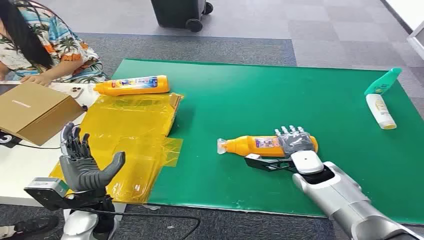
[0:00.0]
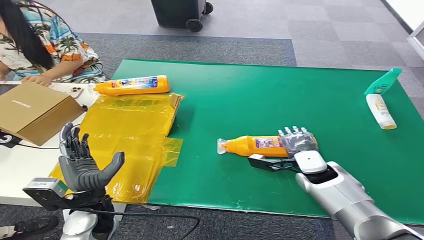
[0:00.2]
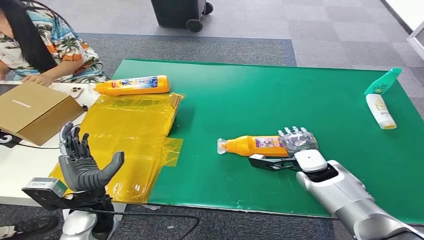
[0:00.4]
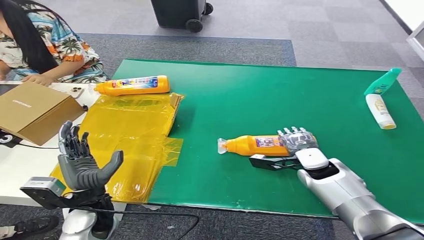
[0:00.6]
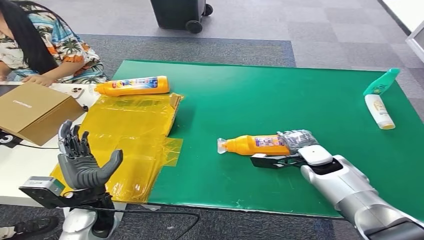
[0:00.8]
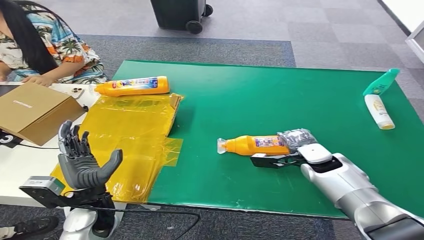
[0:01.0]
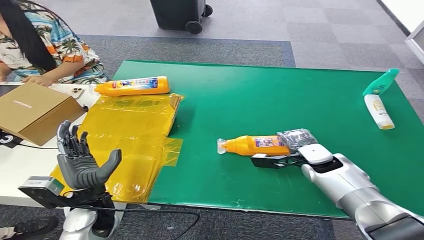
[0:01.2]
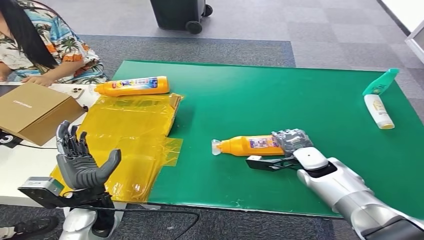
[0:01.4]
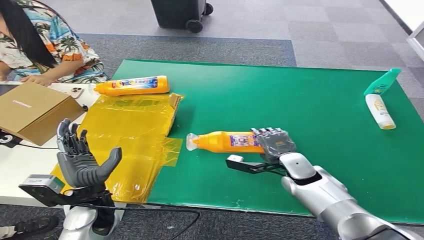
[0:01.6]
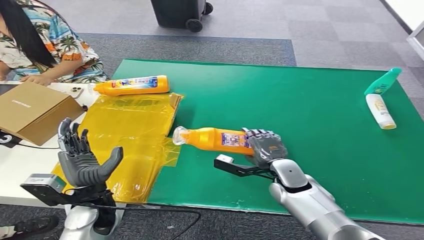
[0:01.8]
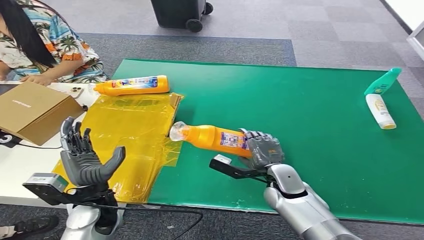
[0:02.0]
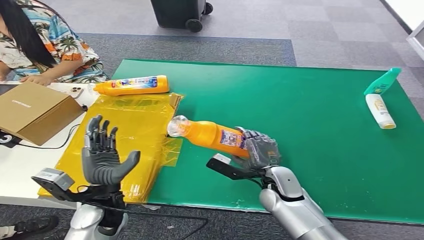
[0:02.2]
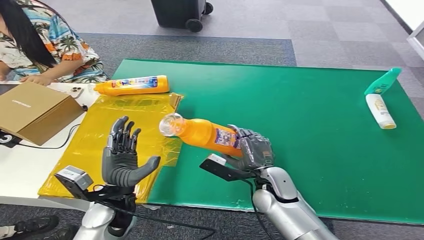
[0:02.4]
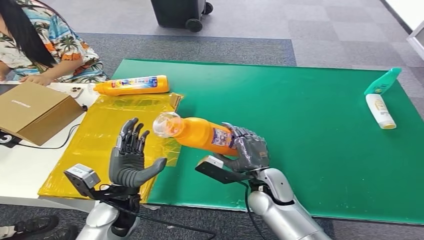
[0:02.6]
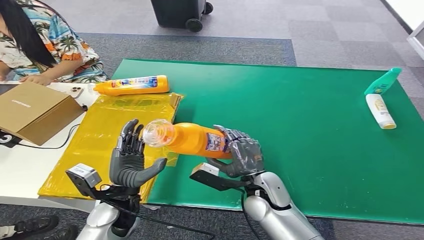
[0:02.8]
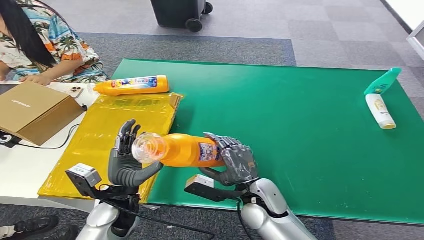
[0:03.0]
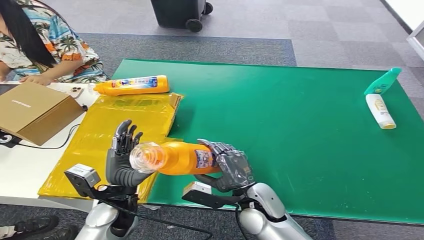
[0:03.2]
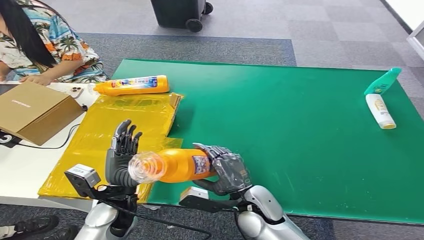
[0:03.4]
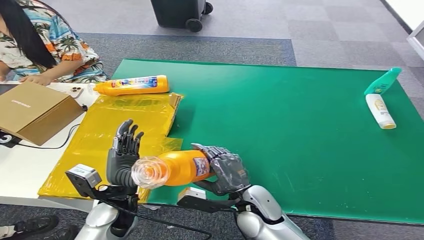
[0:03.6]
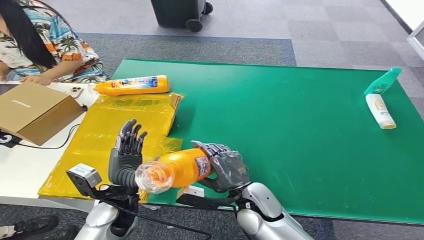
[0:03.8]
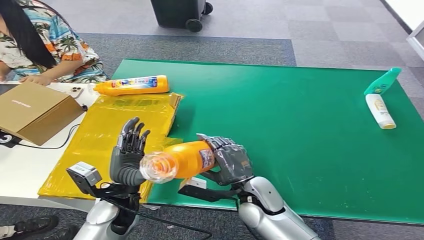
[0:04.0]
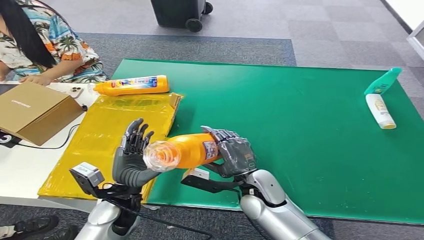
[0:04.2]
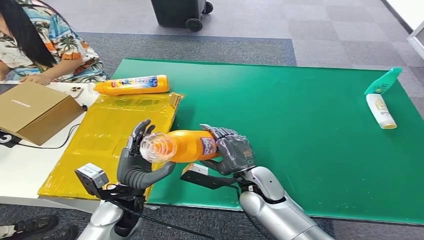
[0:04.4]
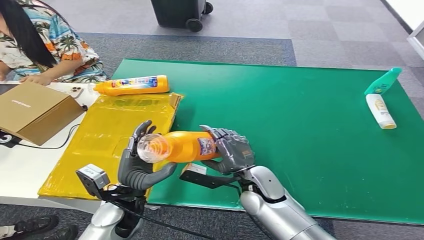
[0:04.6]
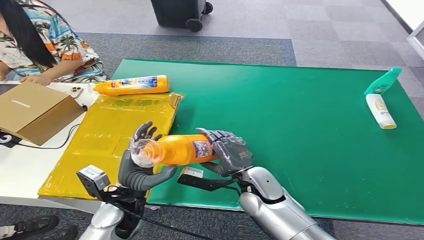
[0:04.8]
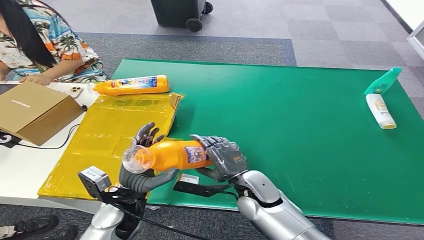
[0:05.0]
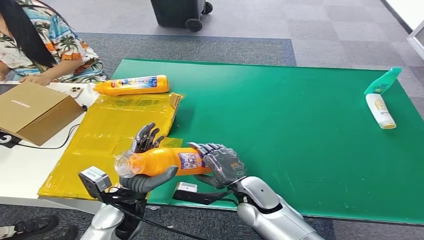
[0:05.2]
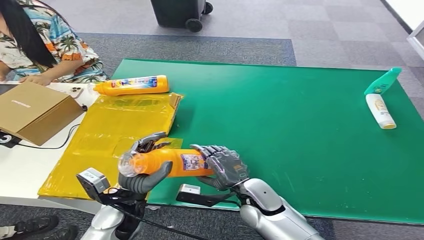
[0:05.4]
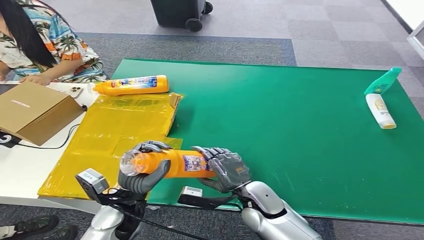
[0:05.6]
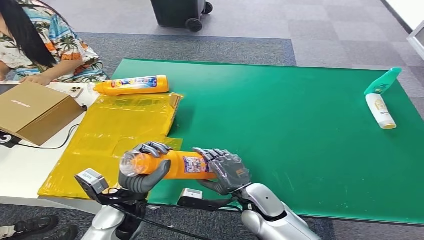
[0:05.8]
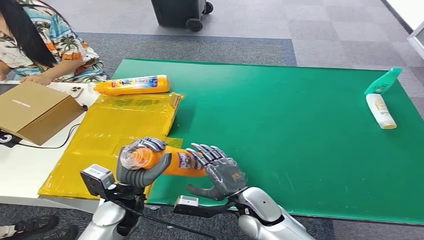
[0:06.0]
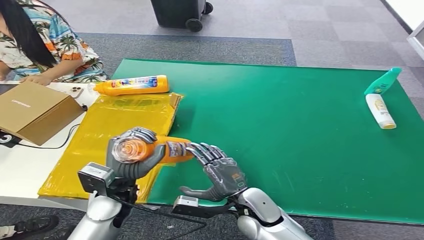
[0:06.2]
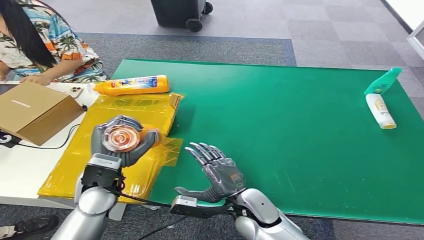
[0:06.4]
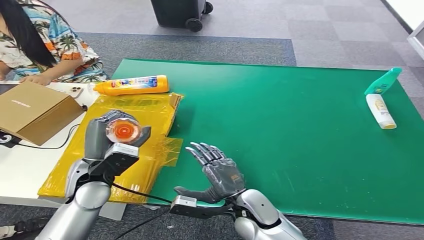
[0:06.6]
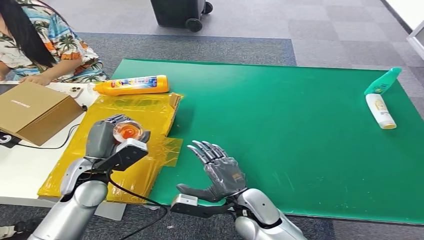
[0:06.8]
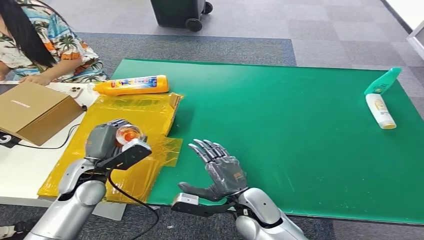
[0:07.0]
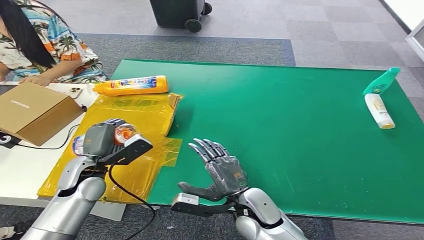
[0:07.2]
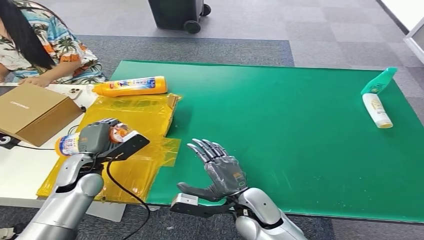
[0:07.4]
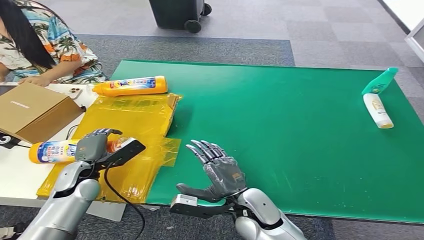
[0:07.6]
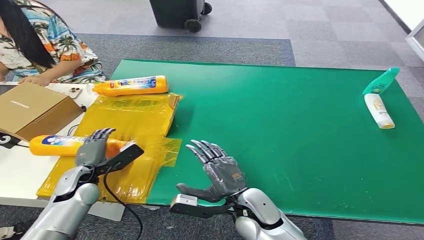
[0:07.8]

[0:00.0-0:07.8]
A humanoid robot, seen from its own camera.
Step, 0:00.0 to 0:02.8: Pick up the bottle from the table.
Step, 0:03.2 to 0:07.8: Turn the bottle to the front side.
0:03.2 to 0:04.6: The hands make only small movements.
0:04.6 to 0:06.2: The right hand shifts roughly 5 cm backward.
0:06.2 to 0:07.8: The left hand heads to the left, downward and forward, covering about 15 cm.
